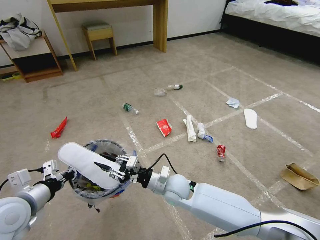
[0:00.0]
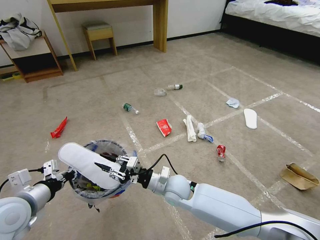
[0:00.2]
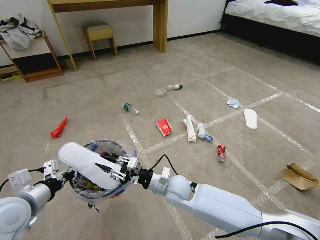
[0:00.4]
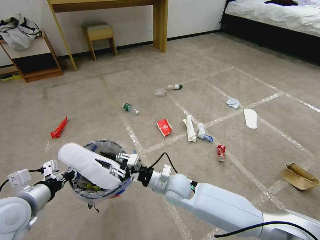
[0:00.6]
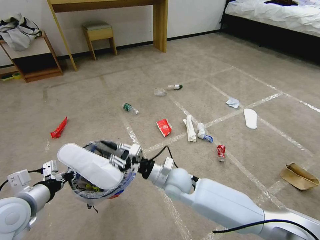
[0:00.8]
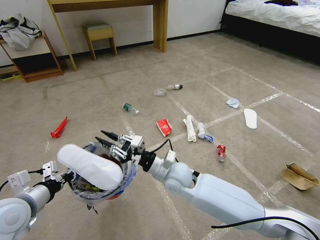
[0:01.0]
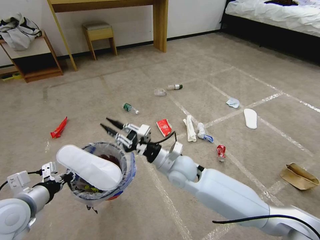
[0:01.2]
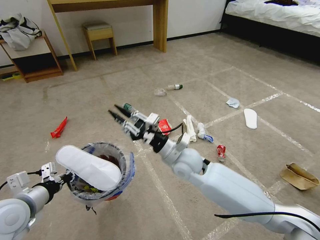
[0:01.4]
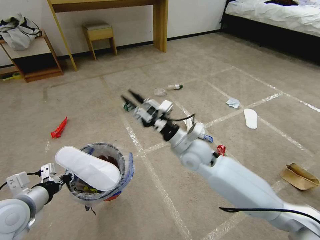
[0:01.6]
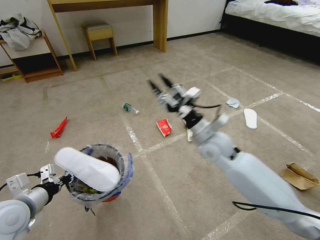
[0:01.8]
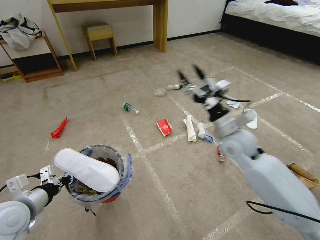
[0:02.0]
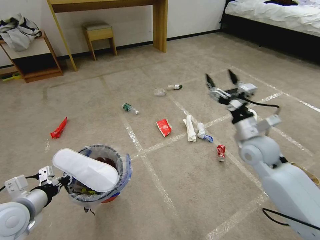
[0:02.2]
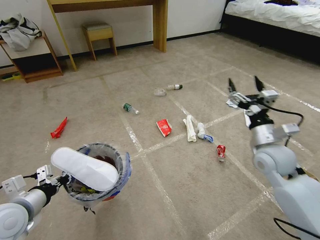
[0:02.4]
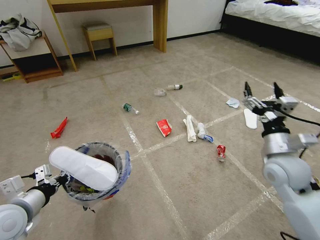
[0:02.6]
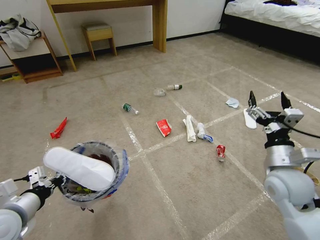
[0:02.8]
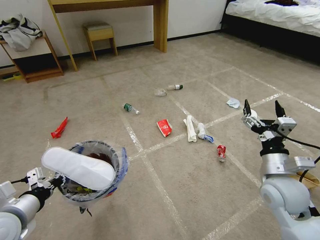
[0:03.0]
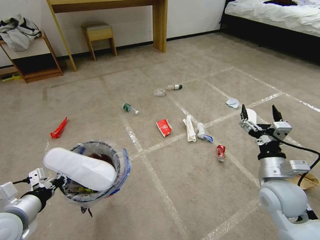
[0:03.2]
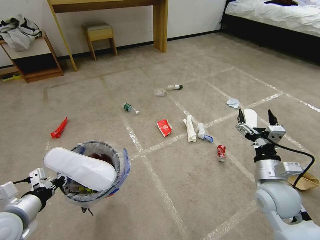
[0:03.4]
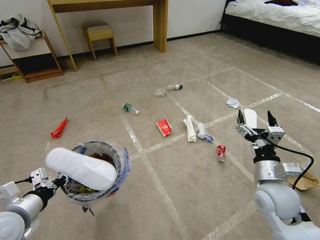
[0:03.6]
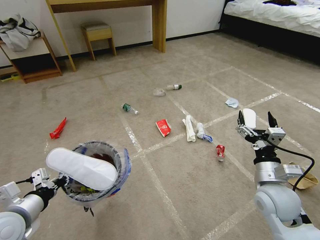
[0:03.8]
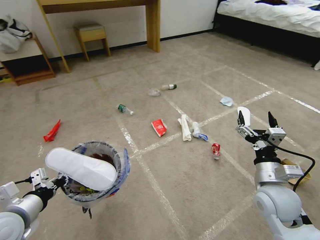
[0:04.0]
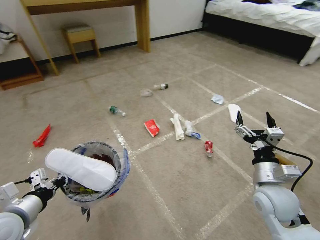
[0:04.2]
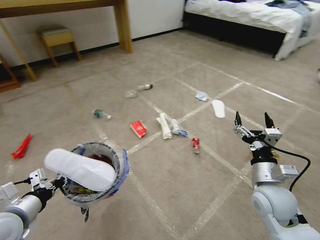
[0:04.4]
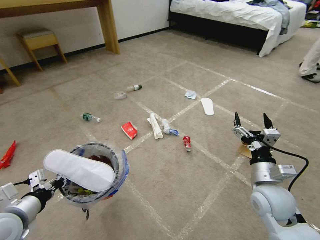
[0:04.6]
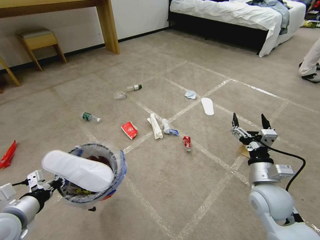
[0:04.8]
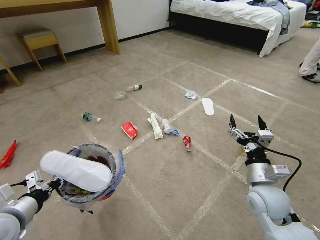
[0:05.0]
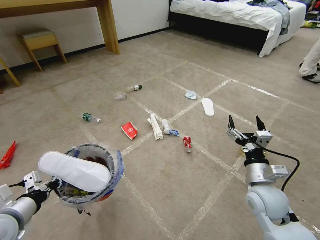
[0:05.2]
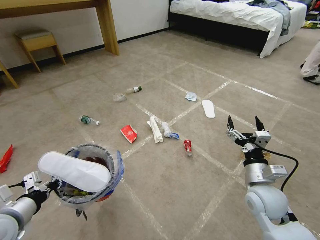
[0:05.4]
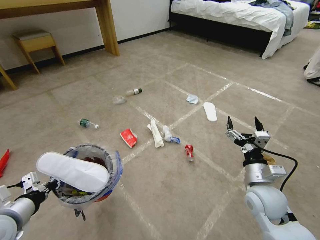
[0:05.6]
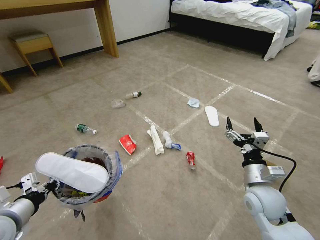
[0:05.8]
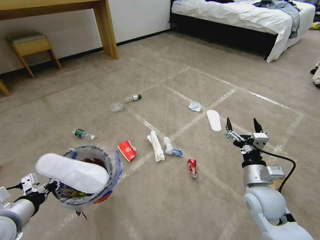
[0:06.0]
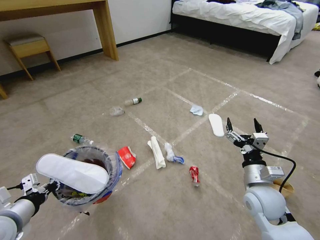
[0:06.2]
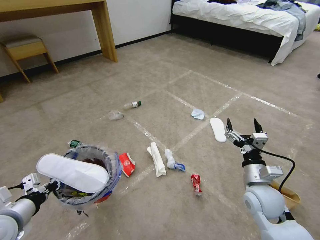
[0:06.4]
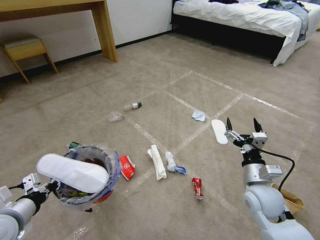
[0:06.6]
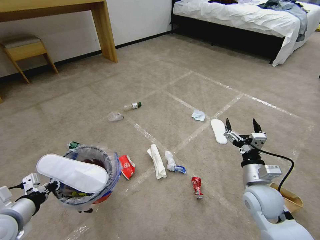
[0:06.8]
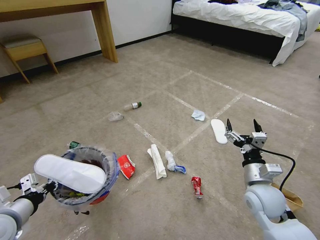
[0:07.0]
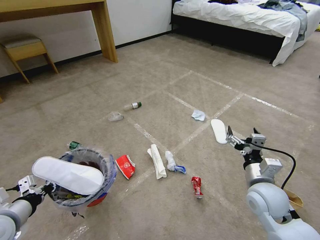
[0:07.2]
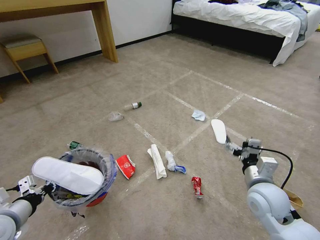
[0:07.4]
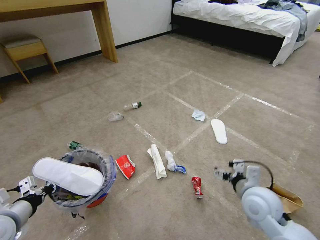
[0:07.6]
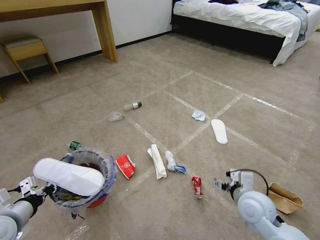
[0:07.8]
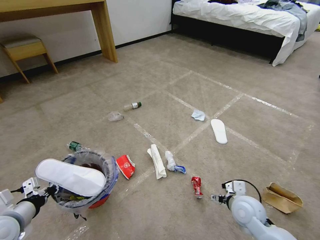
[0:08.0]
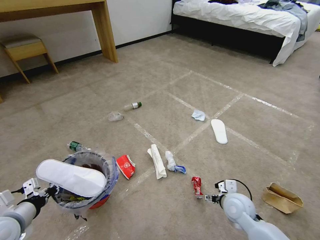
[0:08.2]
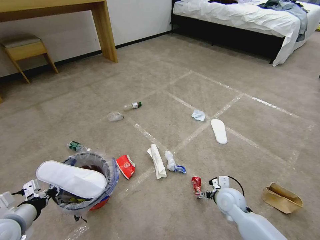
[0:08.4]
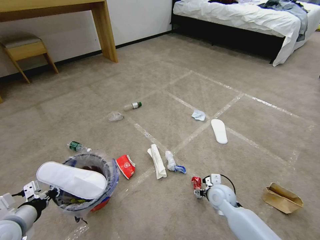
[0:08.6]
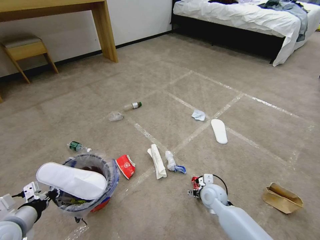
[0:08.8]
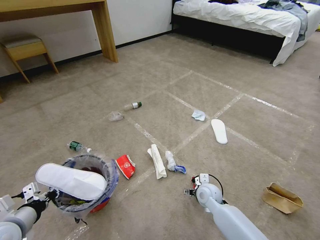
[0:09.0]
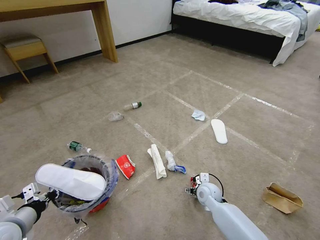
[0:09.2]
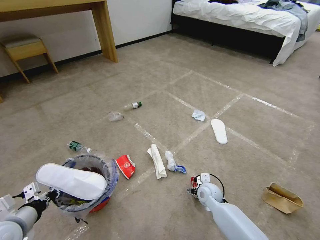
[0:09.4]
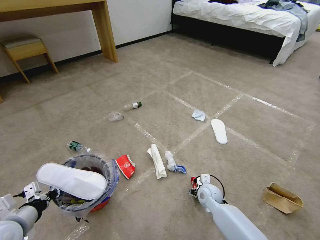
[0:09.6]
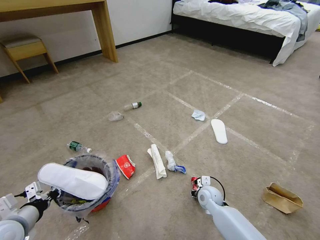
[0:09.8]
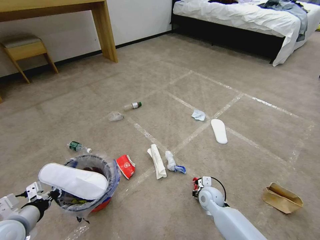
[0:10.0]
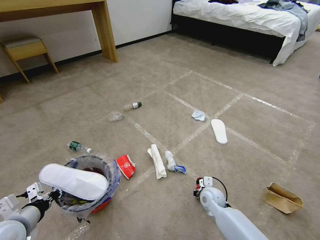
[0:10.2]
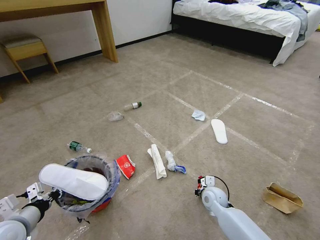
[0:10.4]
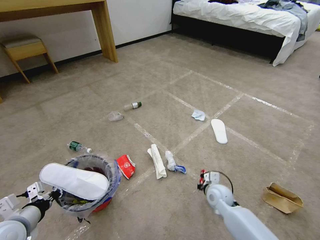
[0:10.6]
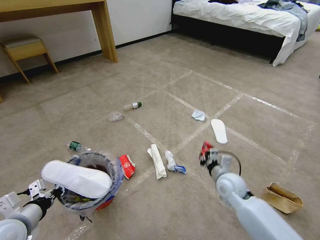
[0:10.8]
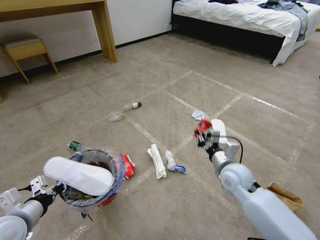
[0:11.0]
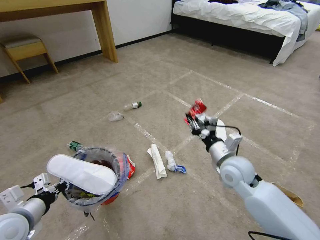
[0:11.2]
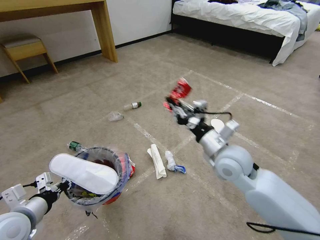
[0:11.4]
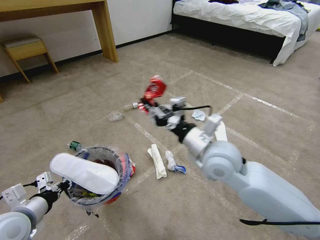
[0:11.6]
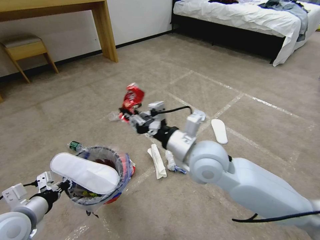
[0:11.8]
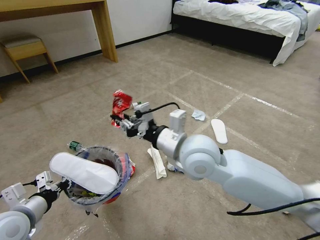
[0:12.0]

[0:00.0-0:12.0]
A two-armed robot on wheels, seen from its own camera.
Task of the whole recording: Pick up the trash bin and place the garbage on the floor into it.
0:00.0 to 0:01.6: The right gripper heads upward, to the right and forward, covering approximately 15 cm.
0:01.6 to 0:03.0: The right gripper heads to the right and backward, covering roughly 25 cm, and opens up.
0:07.6 to 0:09.0: The right gripper goes some 20 cm downward, forward and to the left.
0:09.0 to 0:10.4: The right gripper closes.
0:10.4 to 0:12.0: The right gripper heads upward, covering roughly 35 cm.

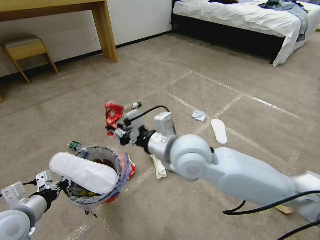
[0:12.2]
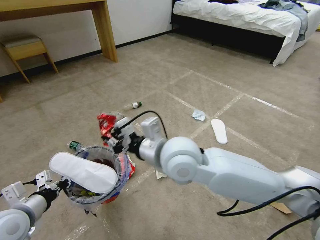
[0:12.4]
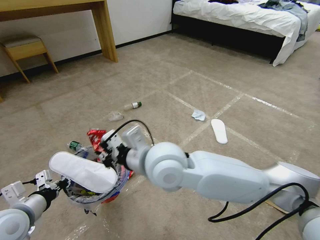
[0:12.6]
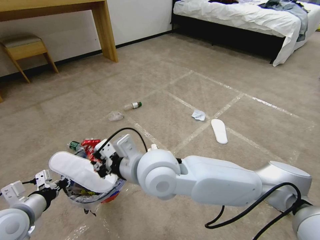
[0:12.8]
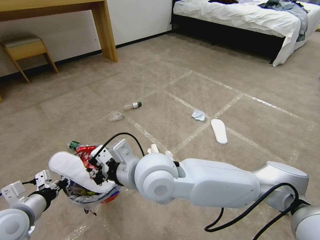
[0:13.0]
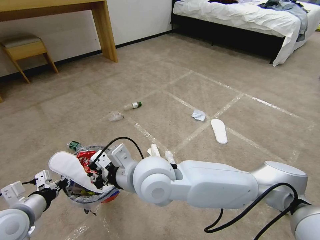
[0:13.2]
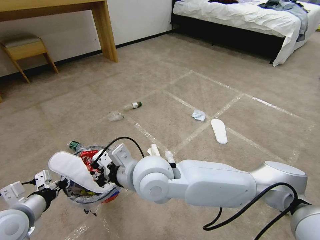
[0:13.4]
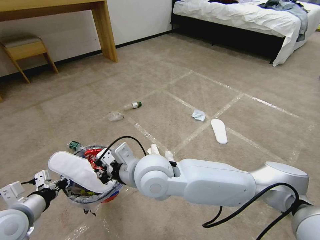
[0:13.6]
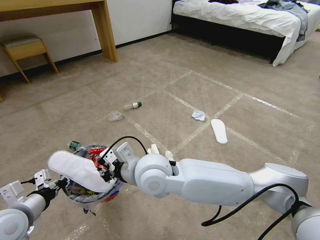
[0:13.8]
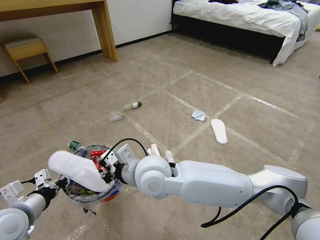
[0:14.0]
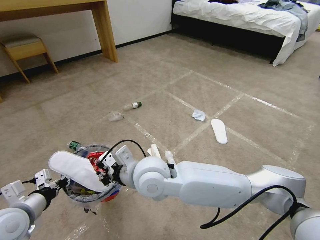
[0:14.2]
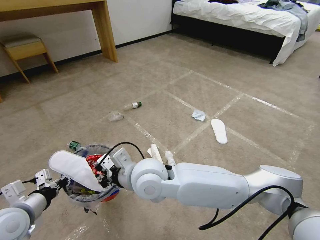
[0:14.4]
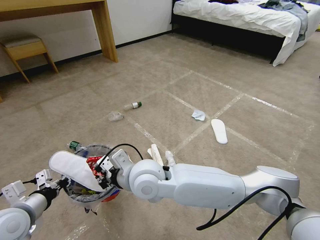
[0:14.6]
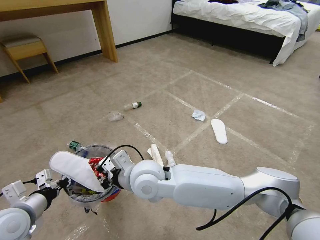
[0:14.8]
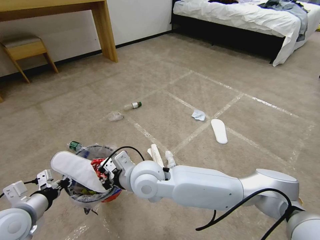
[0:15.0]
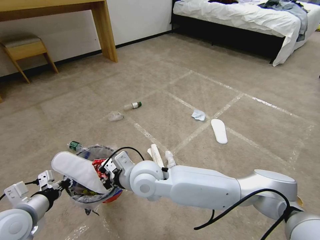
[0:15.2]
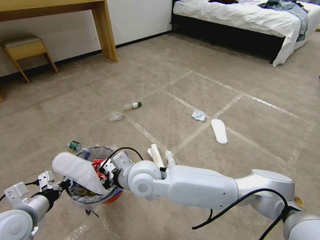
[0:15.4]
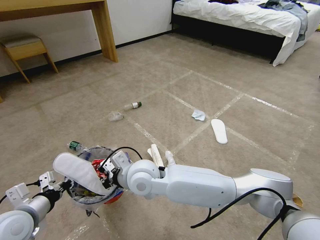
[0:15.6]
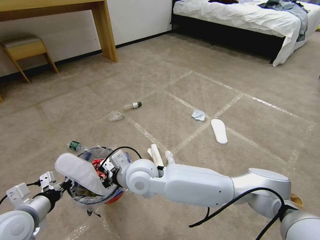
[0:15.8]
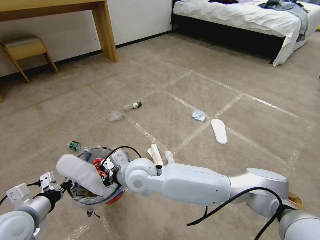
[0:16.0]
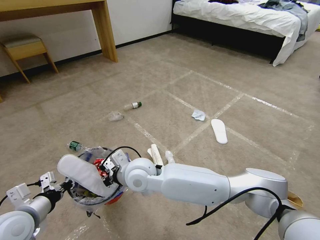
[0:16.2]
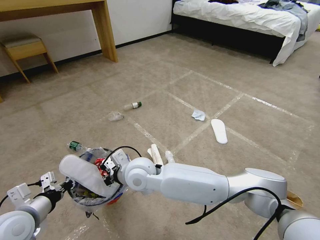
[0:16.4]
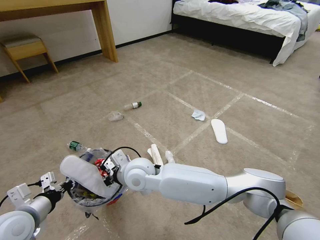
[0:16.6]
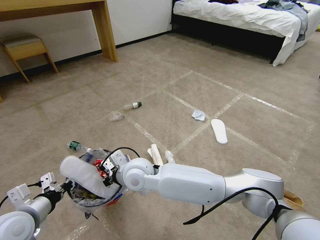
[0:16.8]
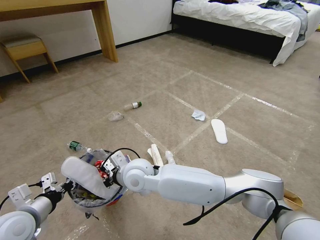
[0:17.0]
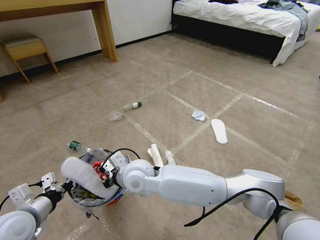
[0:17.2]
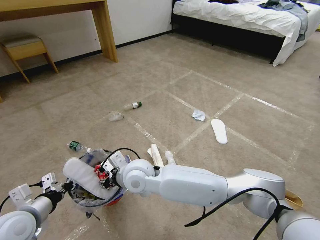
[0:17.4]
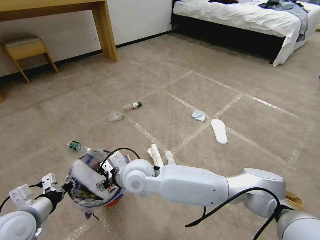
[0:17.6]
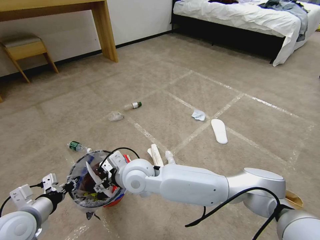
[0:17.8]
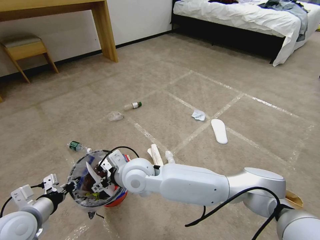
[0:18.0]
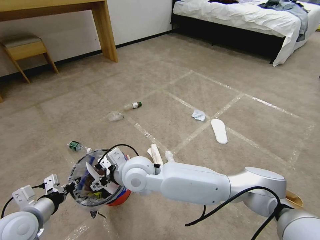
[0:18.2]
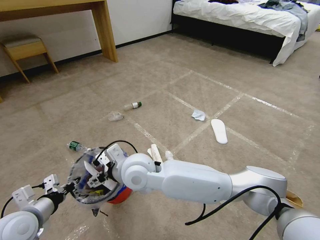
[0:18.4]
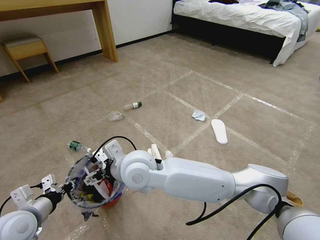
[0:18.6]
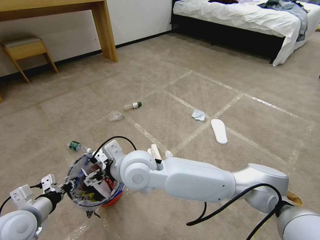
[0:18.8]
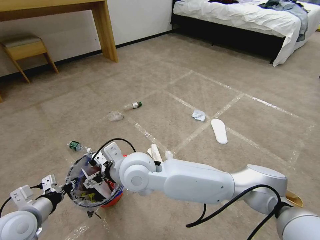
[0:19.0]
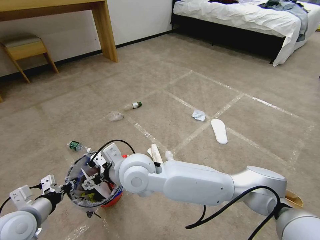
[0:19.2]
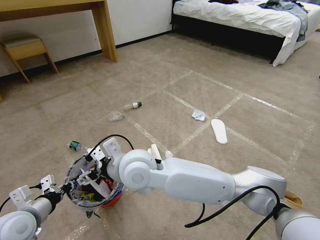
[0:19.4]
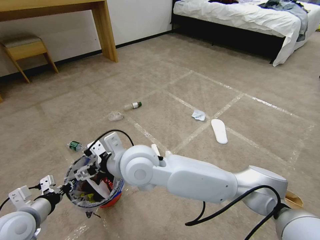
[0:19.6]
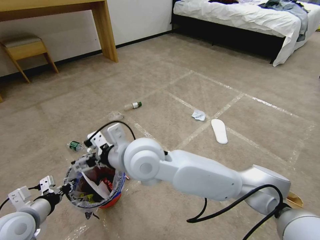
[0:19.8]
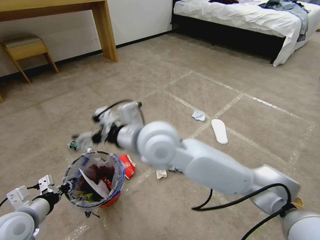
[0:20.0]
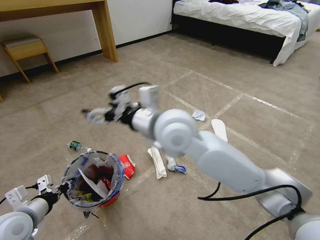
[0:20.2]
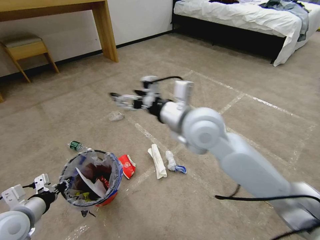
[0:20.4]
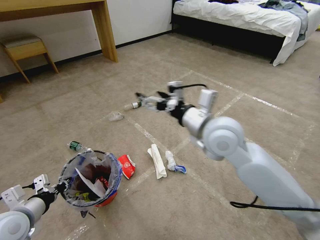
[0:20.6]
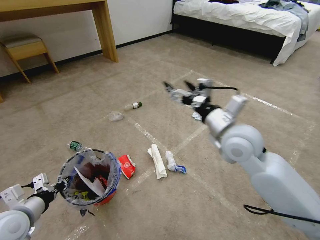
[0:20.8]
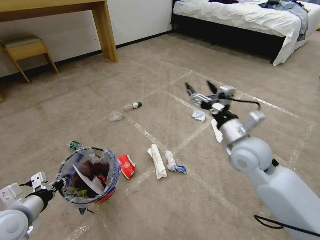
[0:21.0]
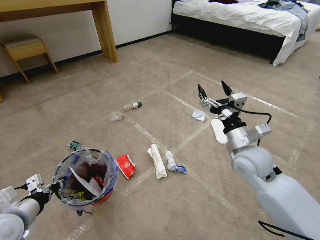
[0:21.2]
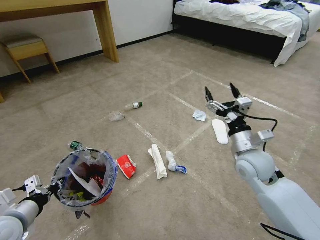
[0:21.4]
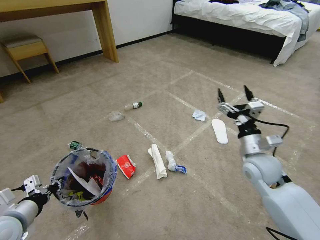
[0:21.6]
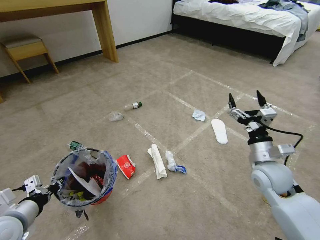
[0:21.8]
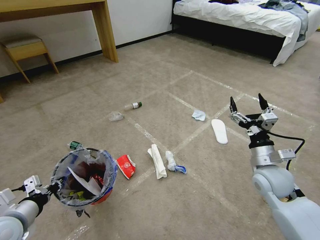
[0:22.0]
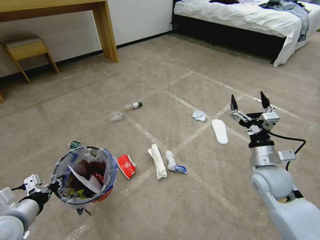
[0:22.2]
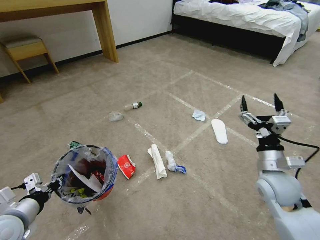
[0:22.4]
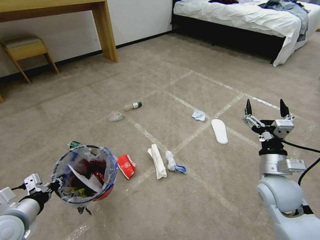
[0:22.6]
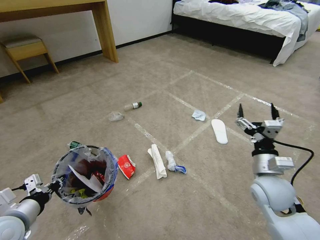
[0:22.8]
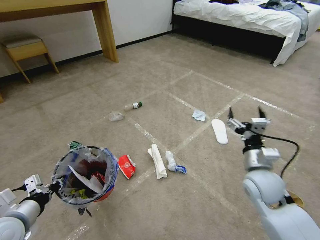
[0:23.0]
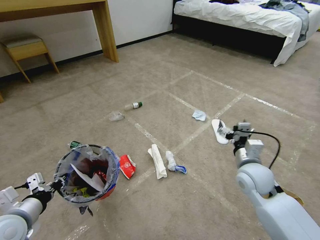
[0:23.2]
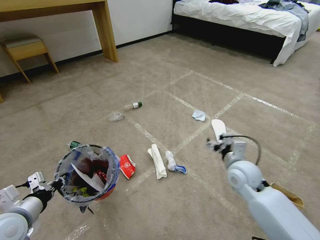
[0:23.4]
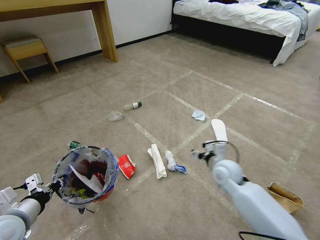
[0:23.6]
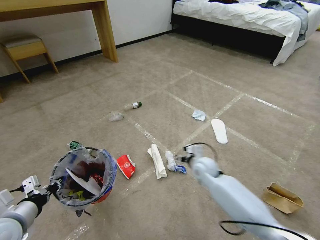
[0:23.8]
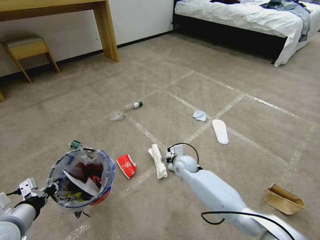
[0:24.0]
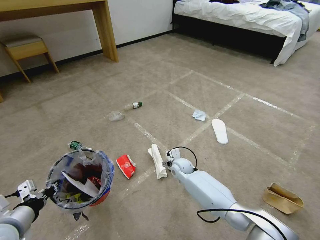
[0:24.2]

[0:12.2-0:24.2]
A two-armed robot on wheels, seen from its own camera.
Task of the whole recording: Pick up the trash bin and place the garbage on the floor into it.
0:12.2 to 0:13.8: The right gripper travels to the left and downward by roughly 10 cm.
0:13.8 to 0:15.2: The right gripper is displaced downward by roughly 5 cm.
0:15.2 to 0:16.6: The grippers move only a little.
0:16.6 to 0:18.2: The right gripper opens its fingers.
0:18.2 to 0:19.8: The right gripper shifts approximately 10 cm upward.
0:19.8 to 0:21.2: The right gripper shifts roughly 25 cm to the right.
0:21.2 to 0:22.6: The right gripper moves downward, to the right and backward, roughly 15 cm.
0:22.6 to 0:24.2: The right gripper travels to the left, downward and forward by some 35 cm.
